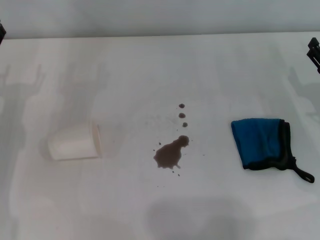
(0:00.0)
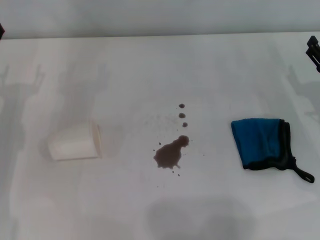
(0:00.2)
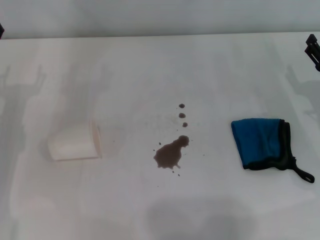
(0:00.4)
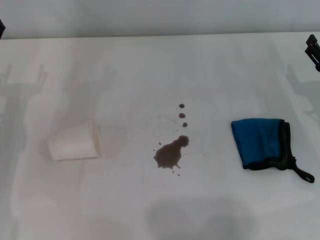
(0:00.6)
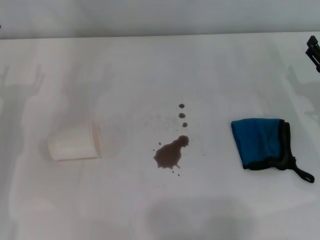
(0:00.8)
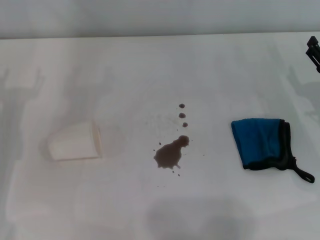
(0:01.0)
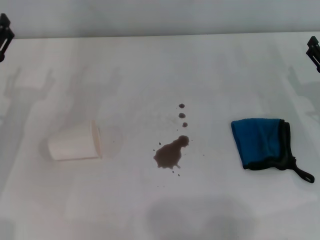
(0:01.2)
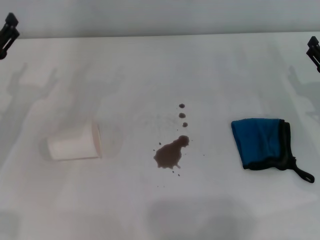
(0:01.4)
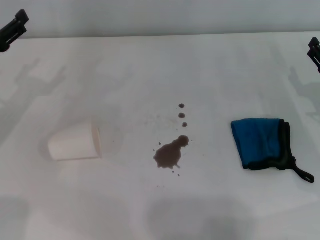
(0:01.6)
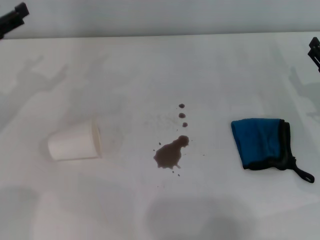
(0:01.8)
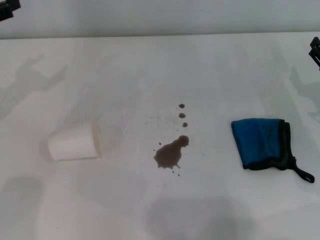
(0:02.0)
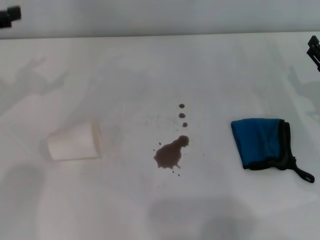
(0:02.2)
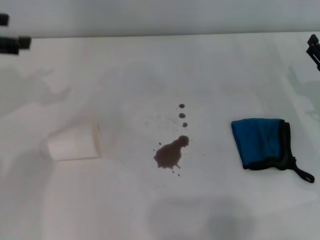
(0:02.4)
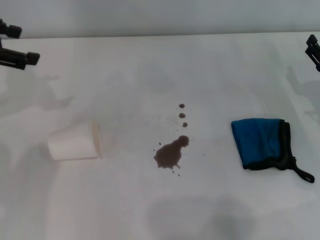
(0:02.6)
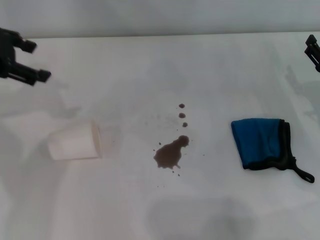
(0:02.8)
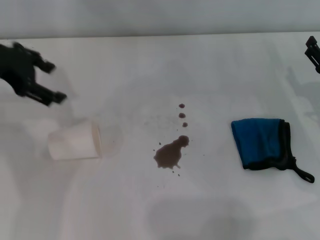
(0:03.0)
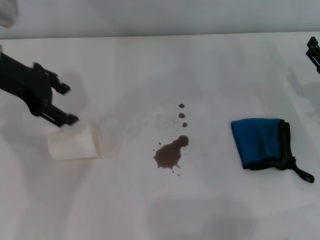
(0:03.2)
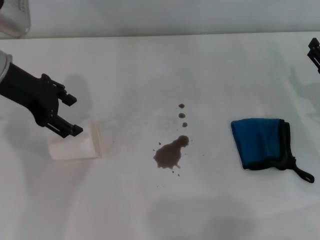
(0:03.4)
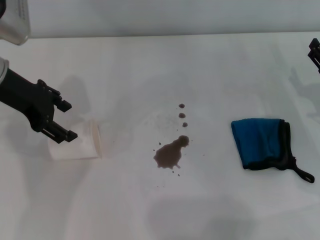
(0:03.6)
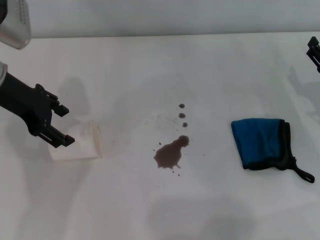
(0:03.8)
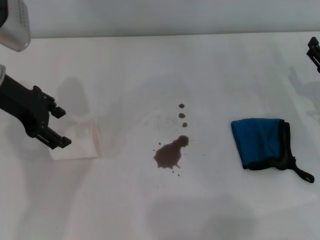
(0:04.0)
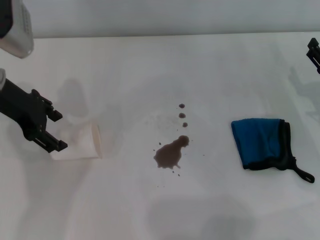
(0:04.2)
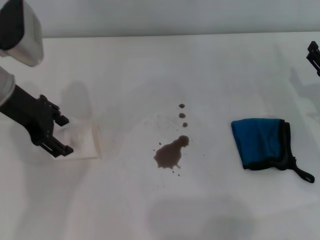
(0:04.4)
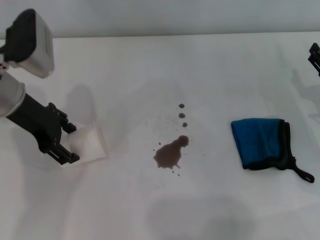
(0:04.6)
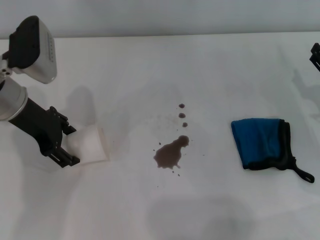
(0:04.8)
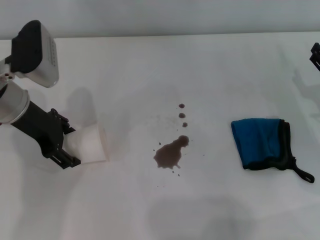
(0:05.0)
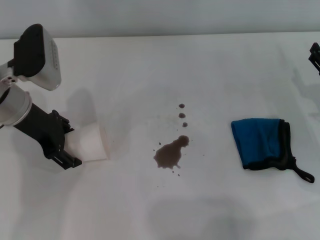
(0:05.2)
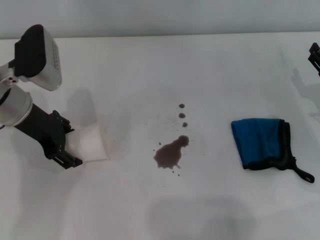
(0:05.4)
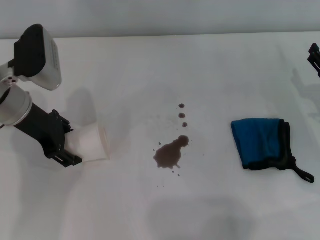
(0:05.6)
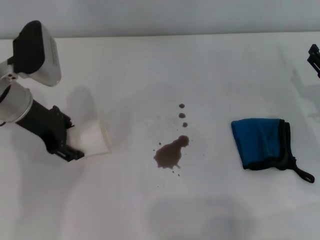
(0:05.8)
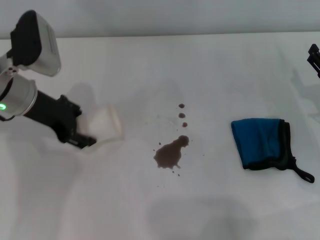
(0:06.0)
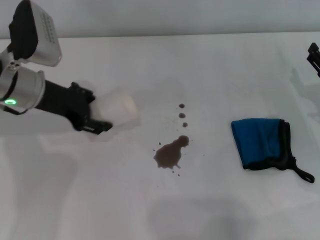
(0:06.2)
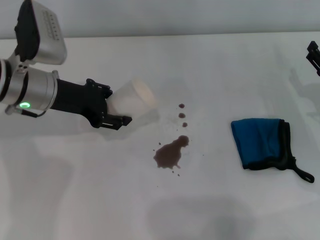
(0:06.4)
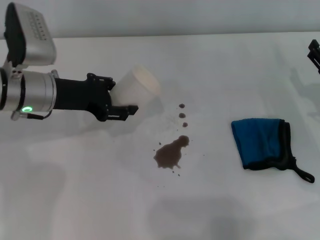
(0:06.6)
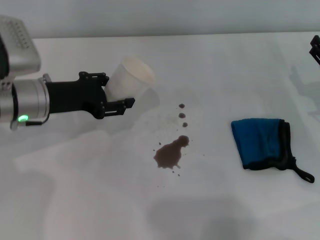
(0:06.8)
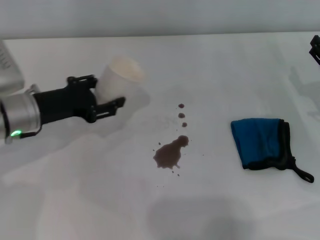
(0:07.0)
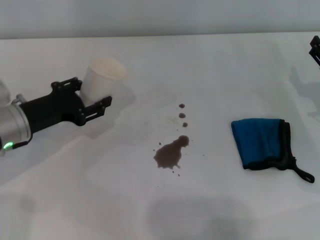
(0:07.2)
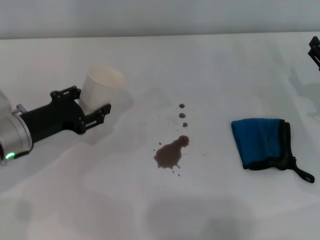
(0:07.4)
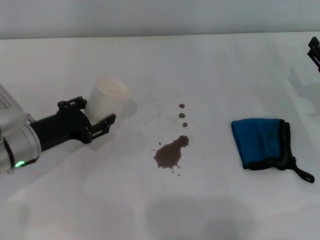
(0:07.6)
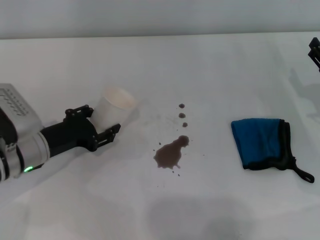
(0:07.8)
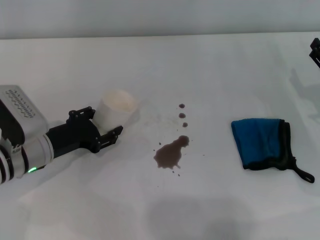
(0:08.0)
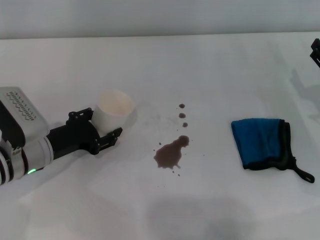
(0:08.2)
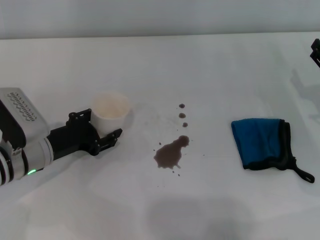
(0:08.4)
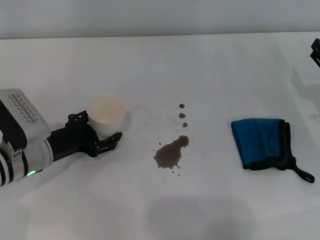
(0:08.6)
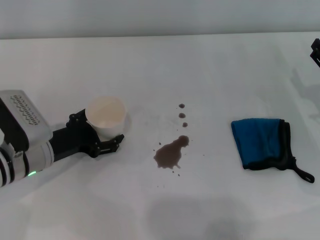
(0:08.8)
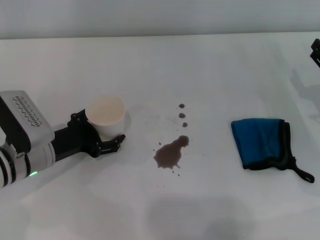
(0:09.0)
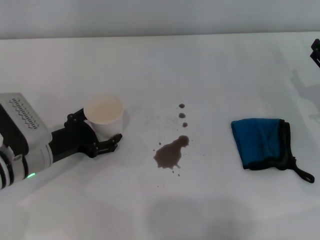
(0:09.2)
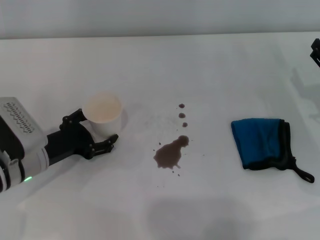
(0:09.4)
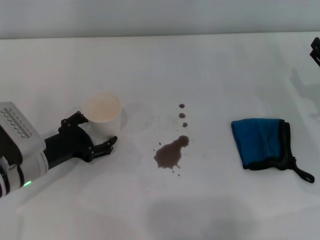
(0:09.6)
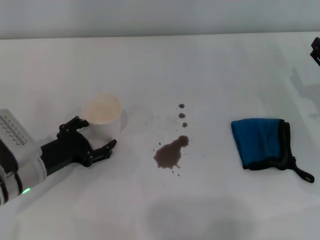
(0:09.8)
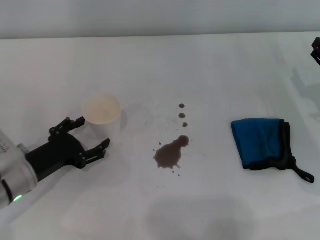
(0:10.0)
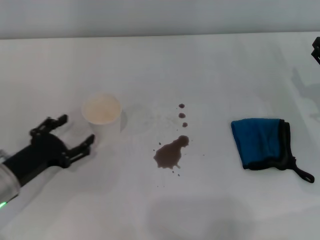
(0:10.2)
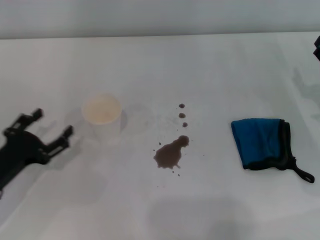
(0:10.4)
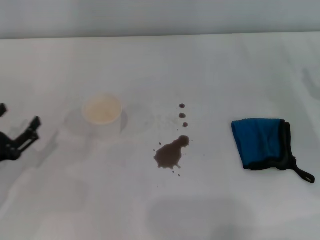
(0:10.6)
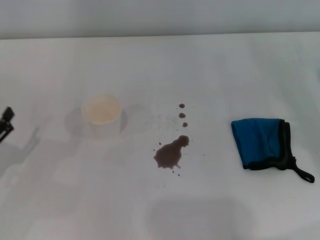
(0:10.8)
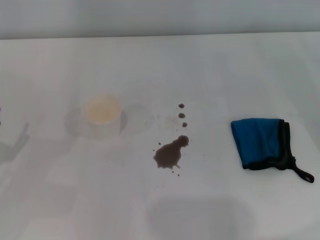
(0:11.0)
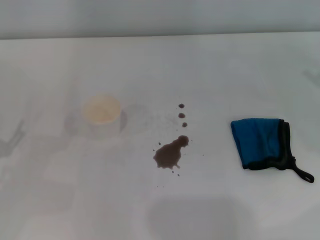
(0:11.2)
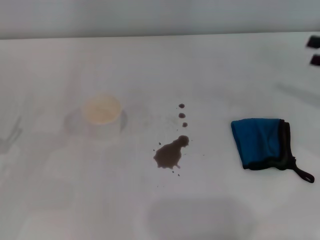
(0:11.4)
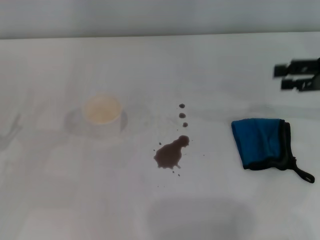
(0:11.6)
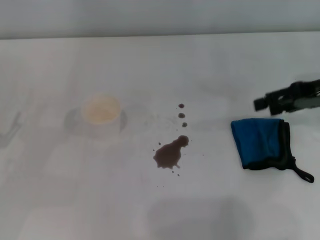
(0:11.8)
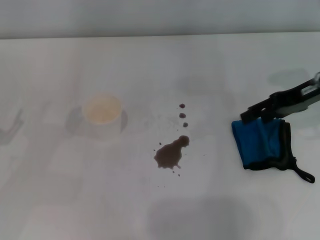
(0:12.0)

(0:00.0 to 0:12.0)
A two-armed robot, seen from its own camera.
Step, 0:00.0 - 0:05.6: Grasp the paper cup with the left gripper.
Step, 0:05.8 - 0:08.8: Stand the paper cup upright with the left gripper.
0:00.0 - 0:01.6: The left gripper moves approximately 5 cm.
0:01.6 - 0:03.0: The left gripper moves upward, approximately 10 cm.
0:03.0 - 0:04.4: The left gripper heads downward, covering some 5 cm.
0:04.4 - 0:06.0: The left gripper closes up.
0:06.0 - 0:07.6: The left gripper shifts approximately 10 cm downward and backward.
0:07.6 - 0:09.0: The left gripper opens.
0:09.0 - 0:10.4: The left gripper shifts roughly 10 cm backward and to the left.
0:10.4 - 0:12.0: The right gripper heads upward and forward, covering roughly 15 cm. The left gripper heads to the left, covering some 5 cm.

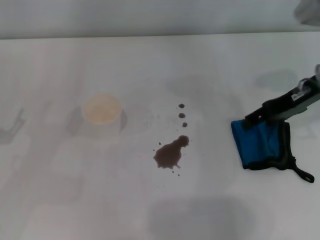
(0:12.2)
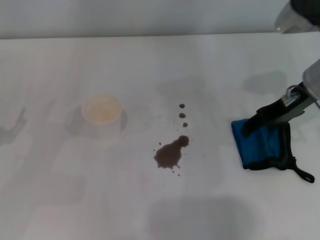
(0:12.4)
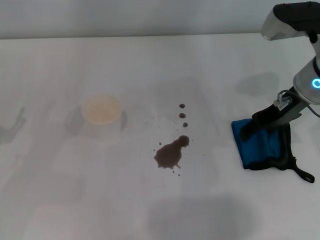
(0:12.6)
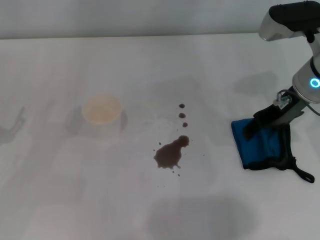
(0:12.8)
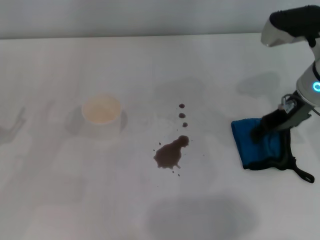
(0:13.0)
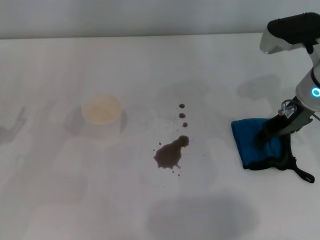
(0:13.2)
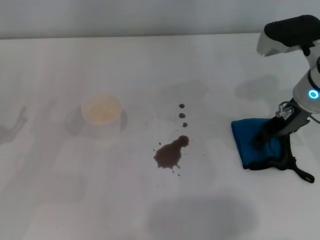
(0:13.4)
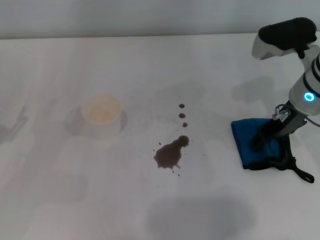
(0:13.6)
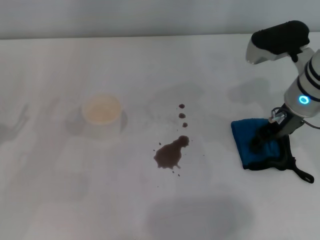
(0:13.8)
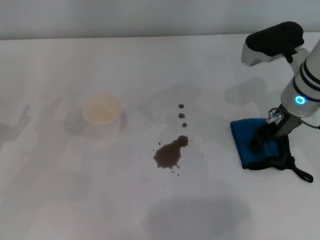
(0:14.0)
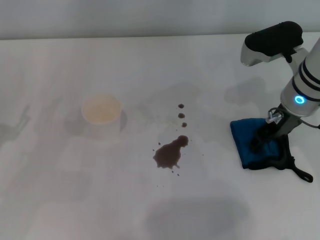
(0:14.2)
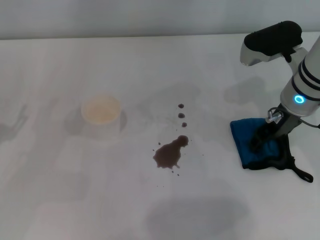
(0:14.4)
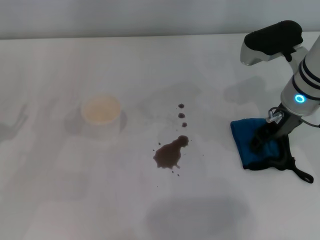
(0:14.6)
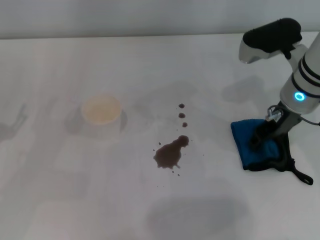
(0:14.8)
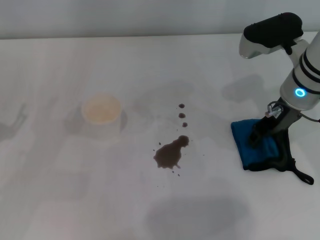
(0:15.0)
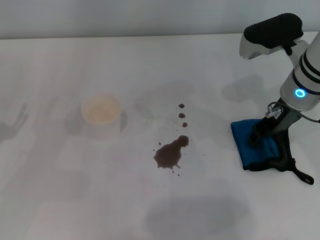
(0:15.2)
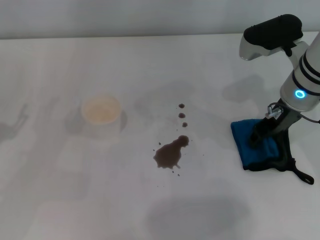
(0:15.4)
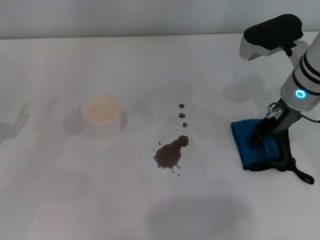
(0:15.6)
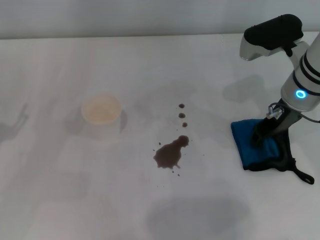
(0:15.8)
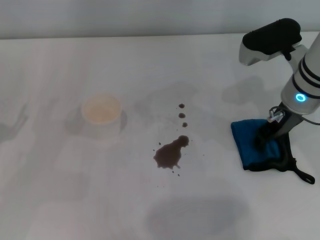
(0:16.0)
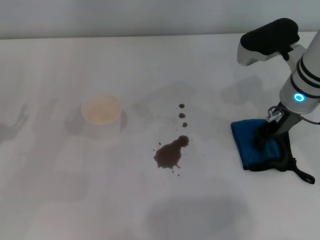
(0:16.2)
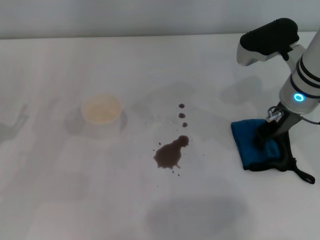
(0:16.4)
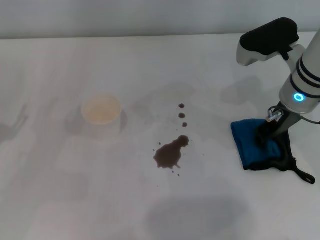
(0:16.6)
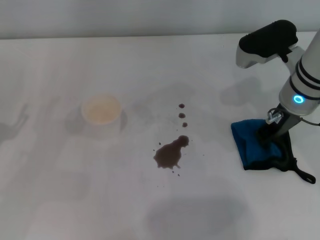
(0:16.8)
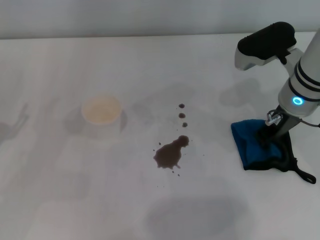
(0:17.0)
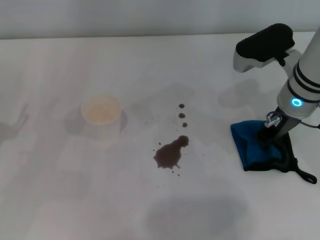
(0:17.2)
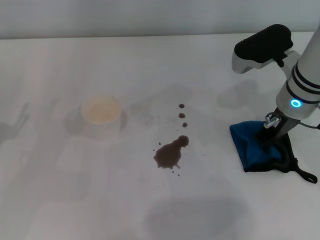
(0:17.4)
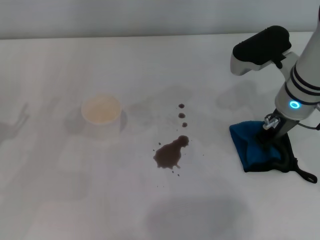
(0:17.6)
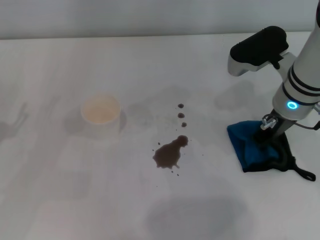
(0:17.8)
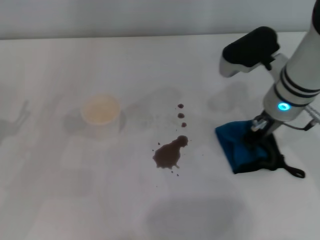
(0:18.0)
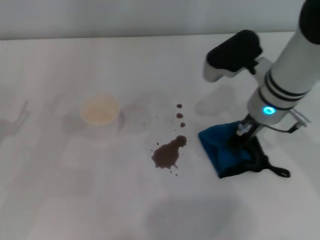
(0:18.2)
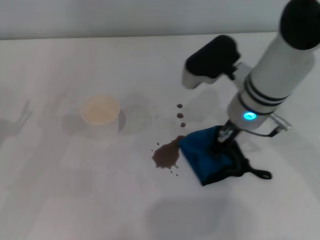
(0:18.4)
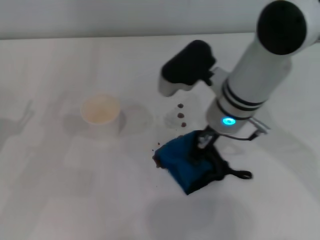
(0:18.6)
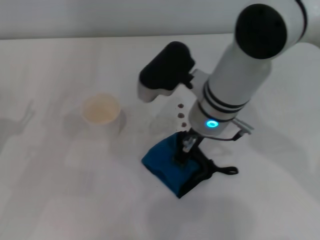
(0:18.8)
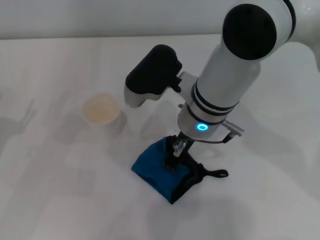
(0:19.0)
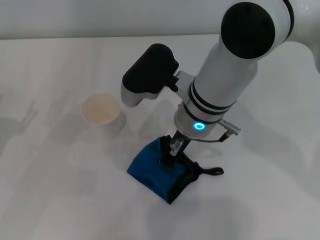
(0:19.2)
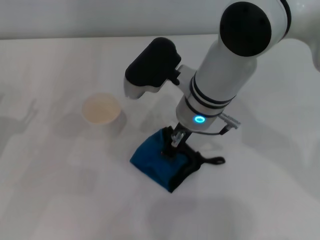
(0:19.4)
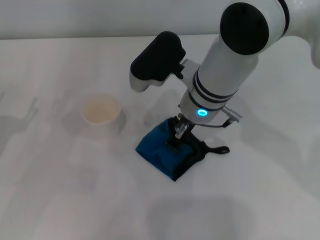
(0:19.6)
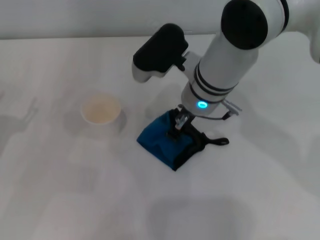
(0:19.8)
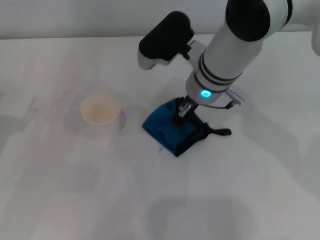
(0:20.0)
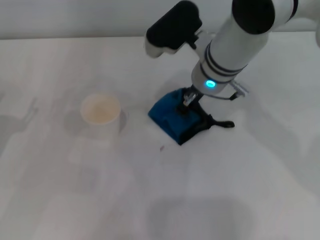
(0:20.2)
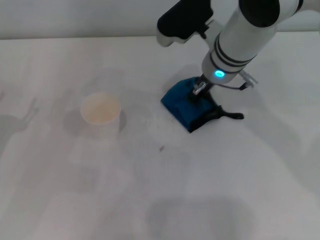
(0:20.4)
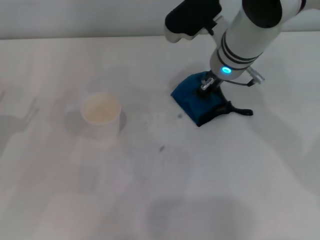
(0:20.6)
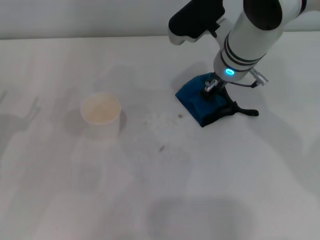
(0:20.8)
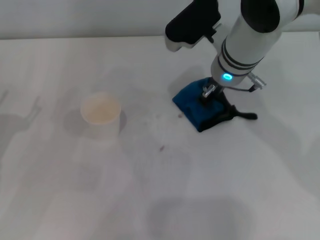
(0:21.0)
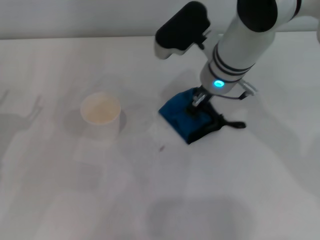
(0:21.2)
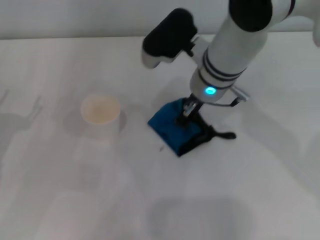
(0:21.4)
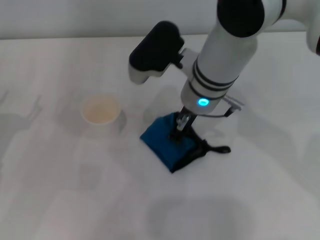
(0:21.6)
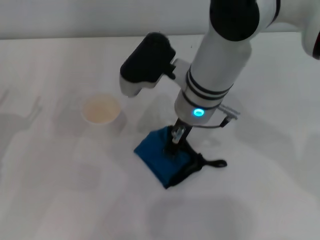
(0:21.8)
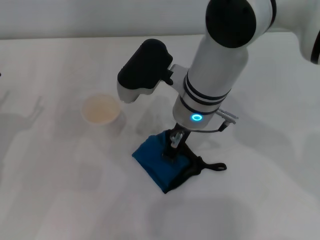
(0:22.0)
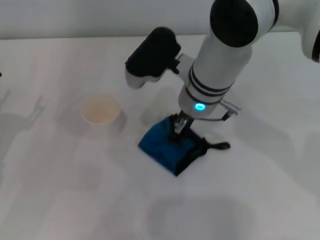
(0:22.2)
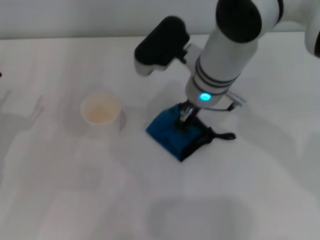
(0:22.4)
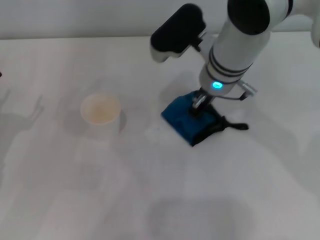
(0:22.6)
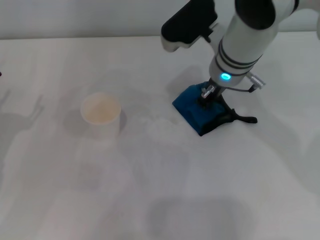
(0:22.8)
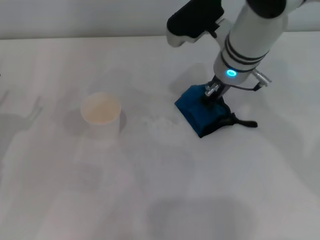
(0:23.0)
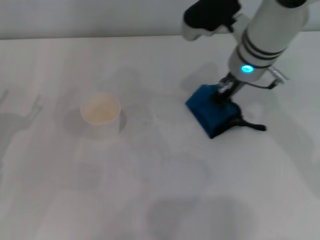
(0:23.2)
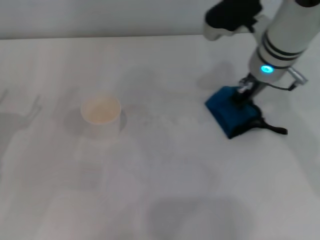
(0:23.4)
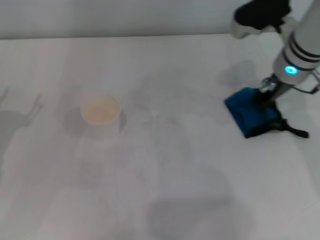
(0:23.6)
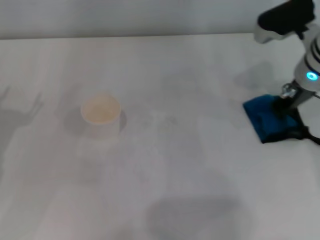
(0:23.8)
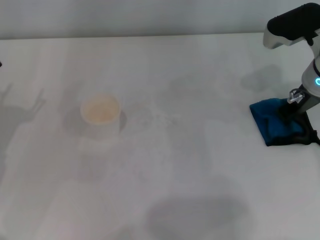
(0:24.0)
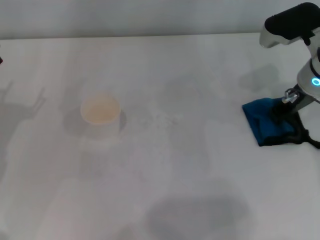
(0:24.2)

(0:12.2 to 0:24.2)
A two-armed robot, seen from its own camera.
Step, 0:12.2 - 0:17.6: Grasp the rag with the right gripper.
Step, 0:17.8 - 0:24.0: Wipe the stains off the table with the right gripper.
0:12.2 - 0:13.8: The right gripper moves to the left, approximately 5 cm.
0:13.8 - 0:15.2: There are only small adjustments of the grippers.
0:15.2 - 0:16.6: Both grippers stay put.
0:16.6 - 0:18.2: The right gripper closes.
0:18.2 - 0:19.8: The right gripper travels to the left by some 10 cm.
0:22.6 - 0:24.2: The right gripper goes approximately 15 cm to the right.
